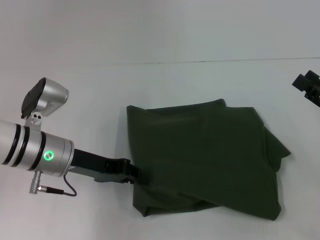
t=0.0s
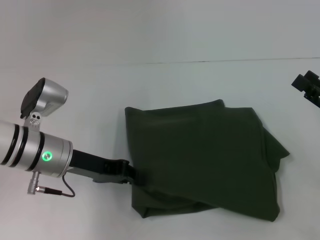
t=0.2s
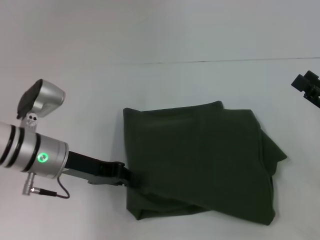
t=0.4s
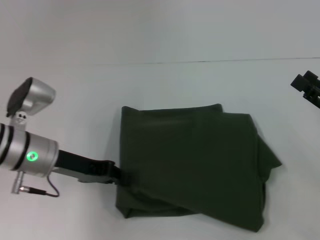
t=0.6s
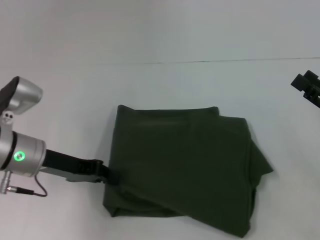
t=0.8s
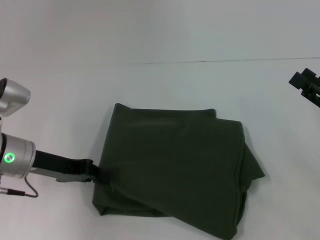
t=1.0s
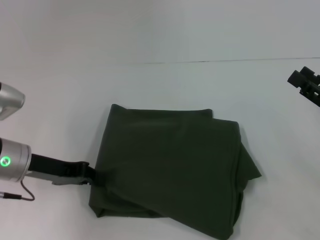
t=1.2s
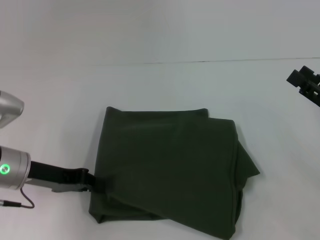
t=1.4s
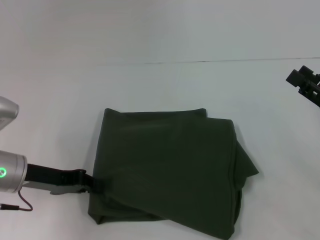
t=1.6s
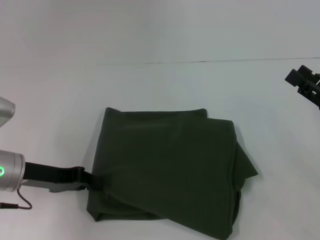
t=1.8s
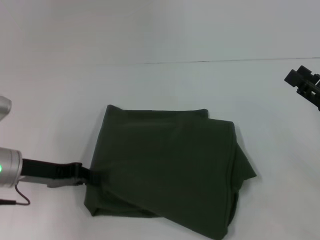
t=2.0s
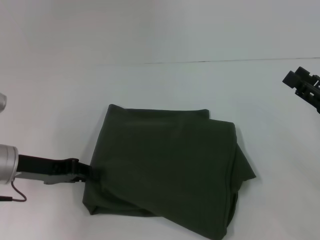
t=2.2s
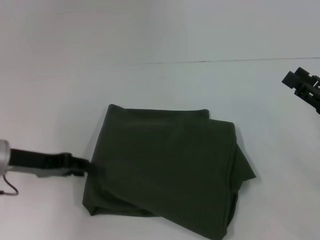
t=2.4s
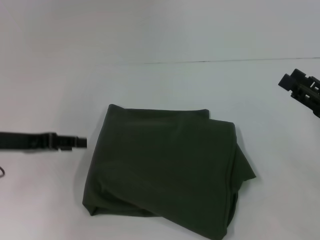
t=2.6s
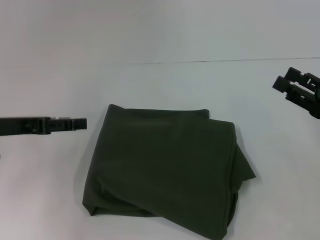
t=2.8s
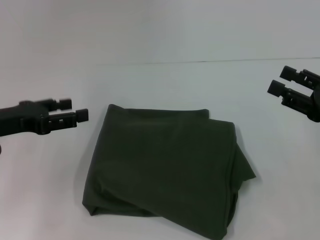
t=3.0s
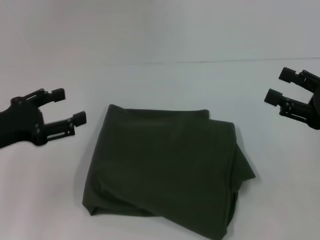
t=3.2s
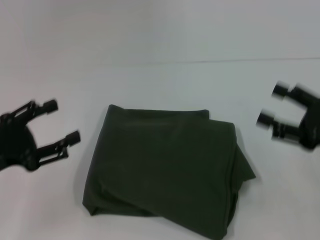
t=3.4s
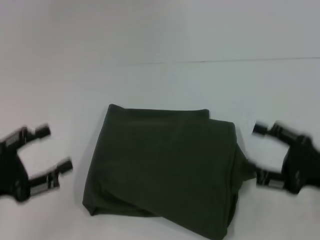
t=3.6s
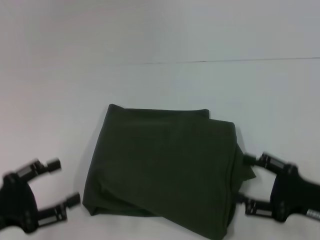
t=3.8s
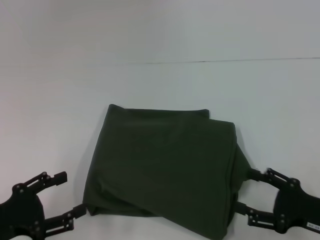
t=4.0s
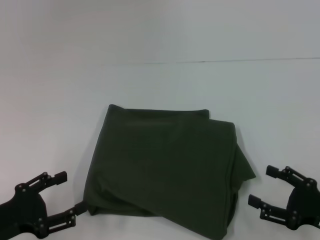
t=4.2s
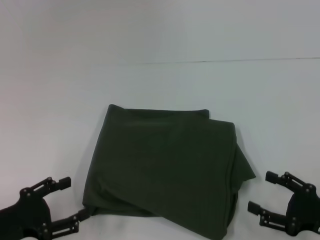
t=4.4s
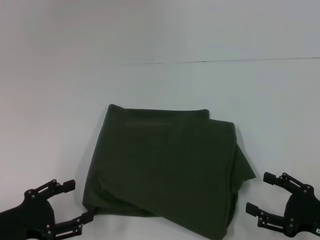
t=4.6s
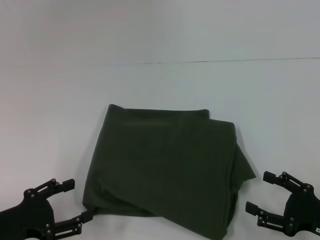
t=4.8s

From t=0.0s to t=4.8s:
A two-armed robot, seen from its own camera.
From t=0.0s to t=1.6s: The left gripper travels to the left by about 5 cm, and closes up.
From t=1.6s to t=3.2s: The left gripper shifts about 5 cm upward, and opens its fingers.
From t=3.2s to t=4.8s: The grippers both shift downward and backward by approximately 15 cm.

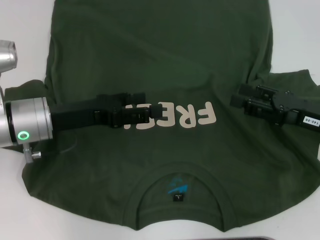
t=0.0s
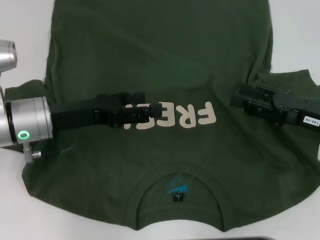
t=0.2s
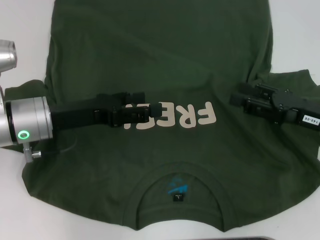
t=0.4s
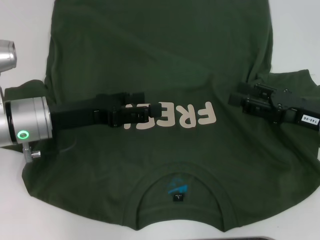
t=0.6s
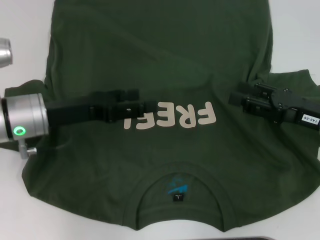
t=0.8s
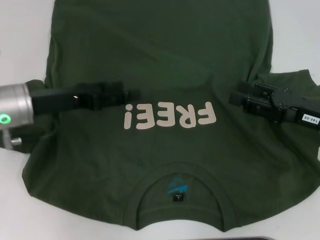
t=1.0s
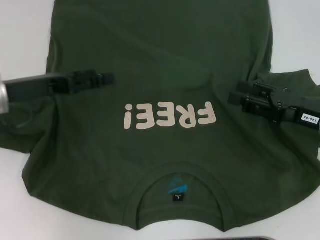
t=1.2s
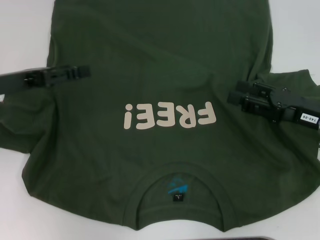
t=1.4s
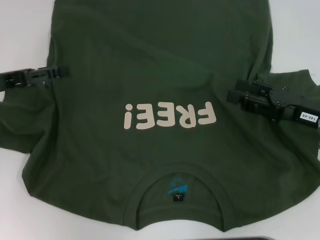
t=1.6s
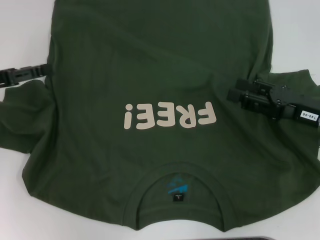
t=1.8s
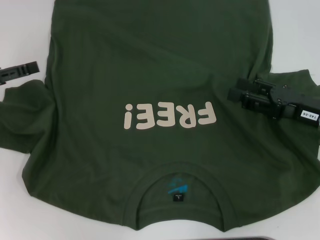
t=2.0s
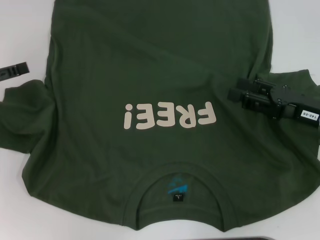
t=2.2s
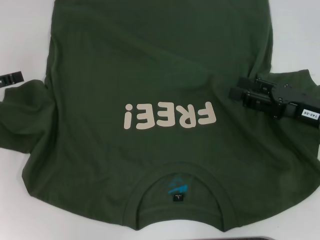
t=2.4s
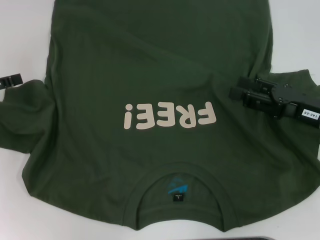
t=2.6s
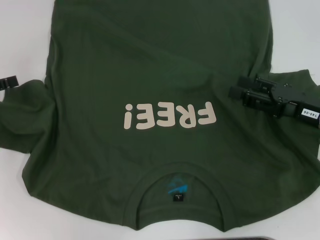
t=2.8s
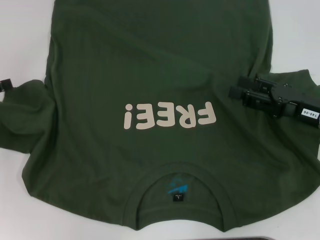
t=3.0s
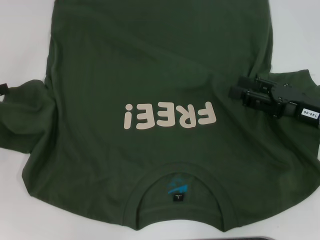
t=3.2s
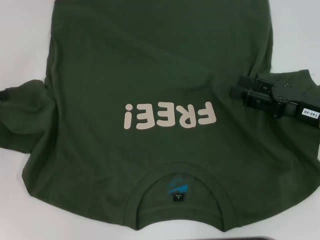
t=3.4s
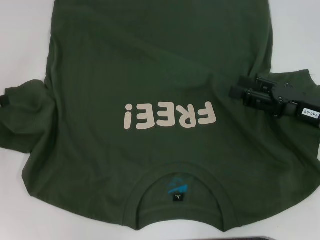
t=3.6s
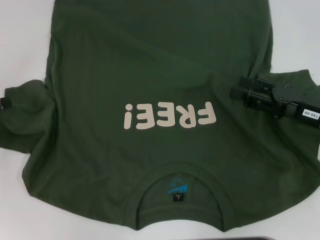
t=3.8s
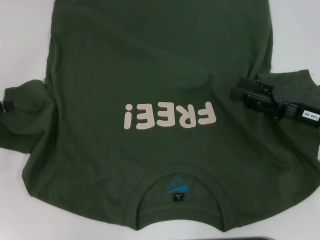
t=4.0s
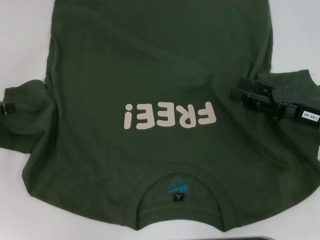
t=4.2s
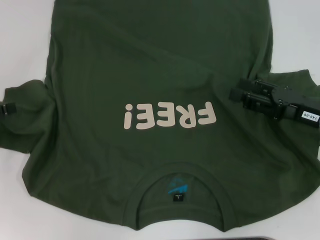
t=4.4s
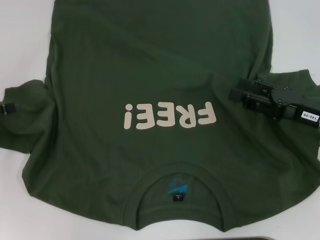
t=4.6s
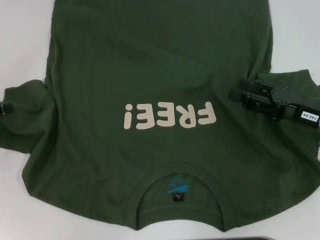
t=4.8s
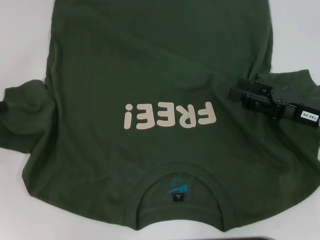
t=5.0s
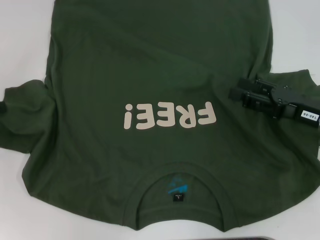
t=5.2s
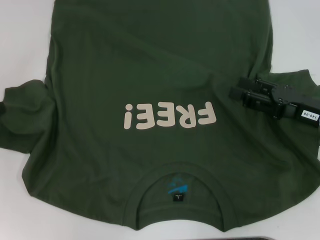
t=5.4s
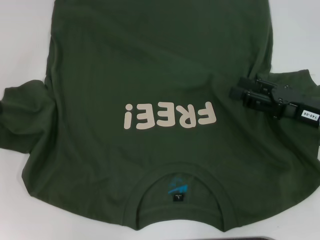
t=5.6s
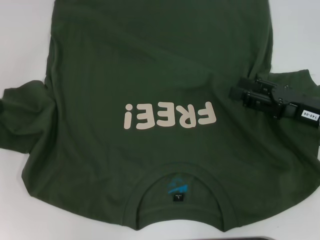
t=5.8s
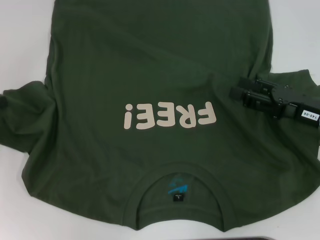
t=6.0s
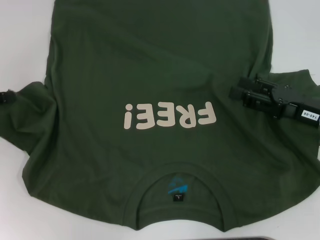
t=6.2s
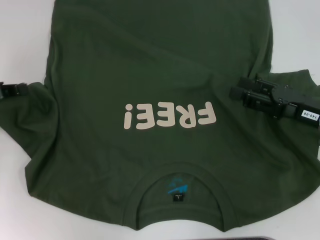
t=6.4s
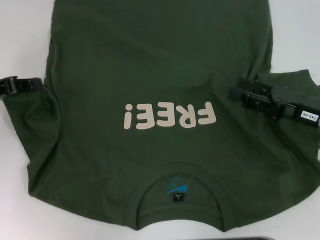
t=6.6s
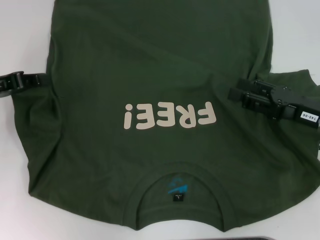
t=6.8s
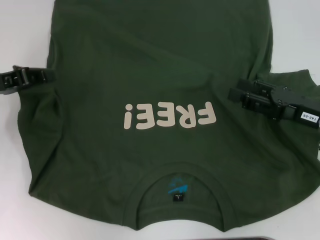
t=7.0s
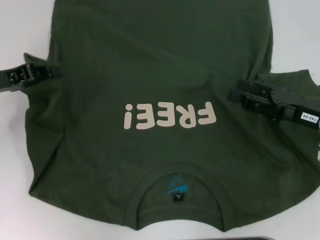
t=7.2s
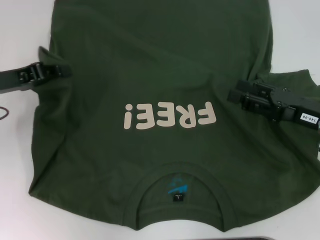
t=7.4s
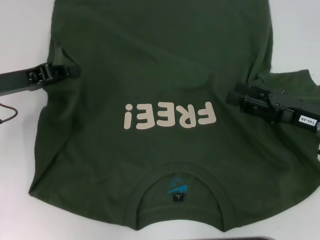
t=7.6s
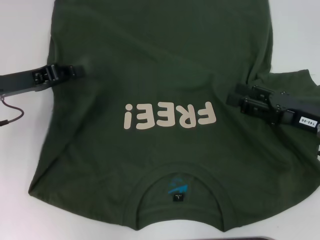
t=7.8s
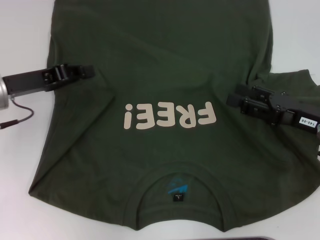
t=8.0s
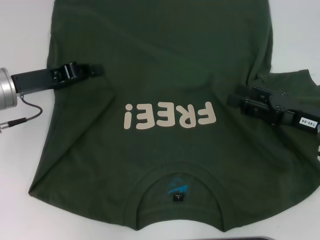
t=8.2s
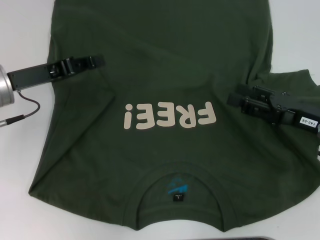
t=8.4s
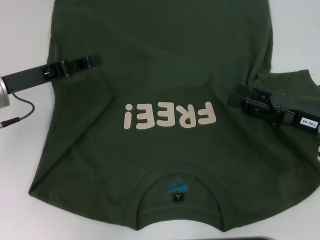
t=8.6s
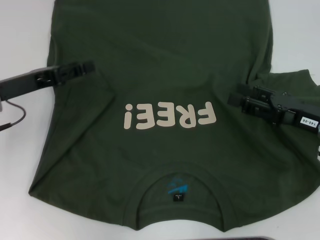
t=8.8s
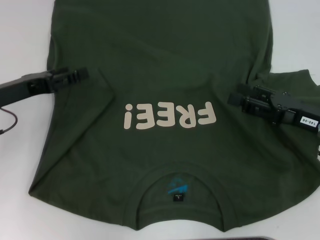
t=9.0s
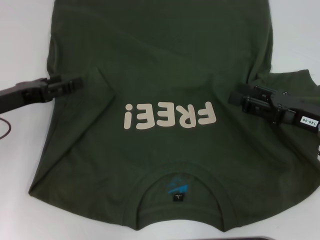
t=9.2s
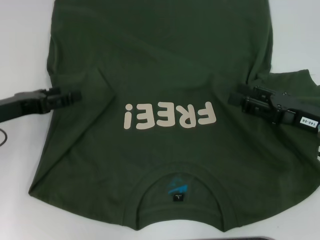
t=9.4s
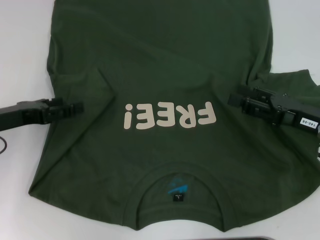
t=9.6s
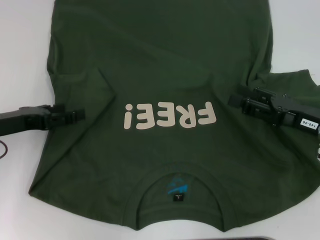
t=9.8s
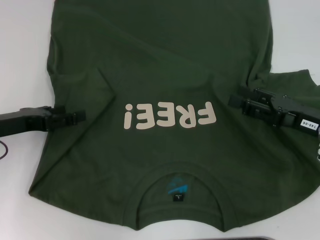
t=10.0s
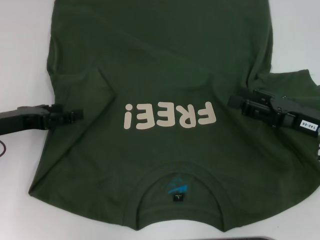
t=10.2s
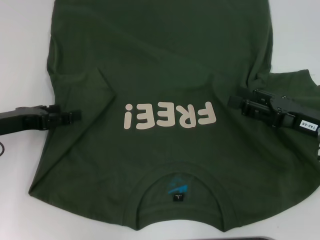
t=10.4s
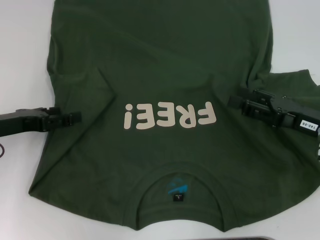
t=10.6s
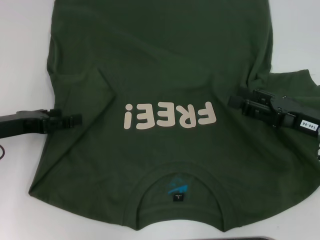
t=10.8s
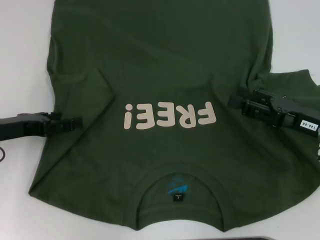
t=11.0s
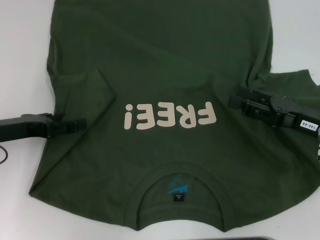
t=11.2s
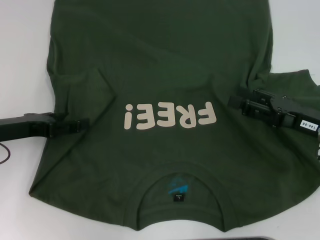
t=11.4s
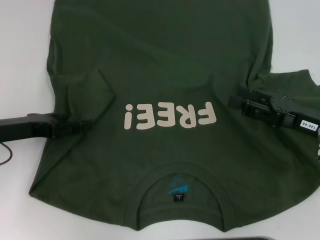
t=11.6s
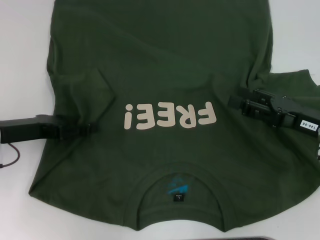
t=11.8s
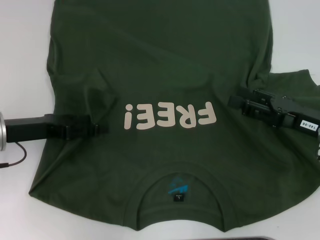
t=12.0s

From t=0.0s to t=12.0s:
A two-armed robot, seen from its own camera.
From t=0.0s to t=1.6s: The left gripper goes roughly 10 cm to the left.
From t=1.6s to t=3.0s: The left gripper is displaced to the left by roughly 5 cm.
From t=6.0s to t=7.6s: The left gripper shifts about 10 cm to the right.
From t=7.6s to t=9.0s: The left gripper opens its fingers.
From t=9.0s to t=12.0s: The grippers stay close to where they were, moving slightly.

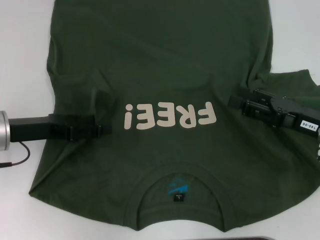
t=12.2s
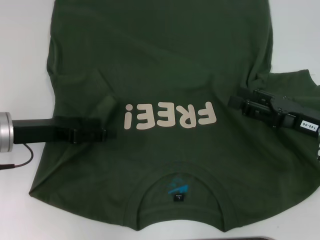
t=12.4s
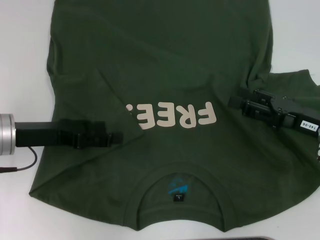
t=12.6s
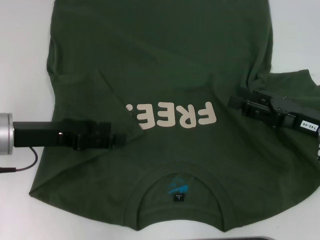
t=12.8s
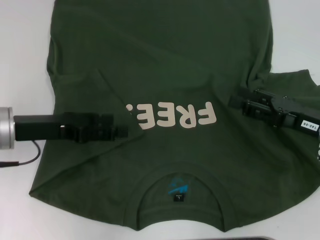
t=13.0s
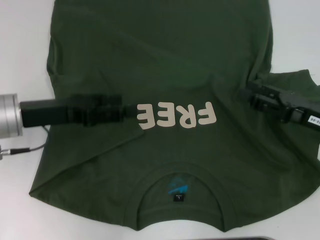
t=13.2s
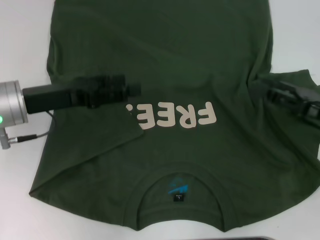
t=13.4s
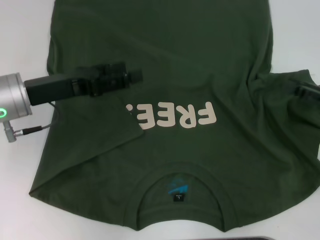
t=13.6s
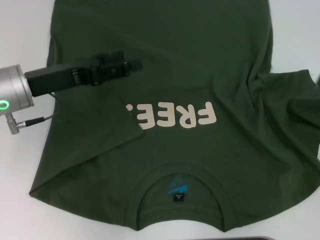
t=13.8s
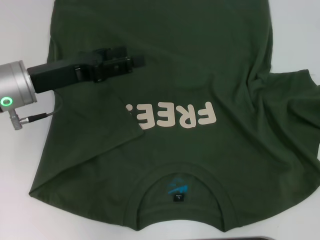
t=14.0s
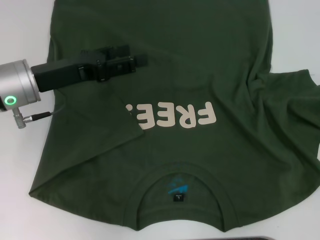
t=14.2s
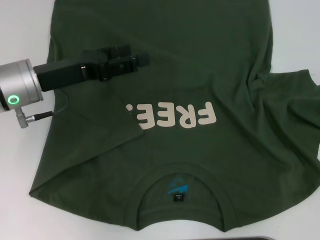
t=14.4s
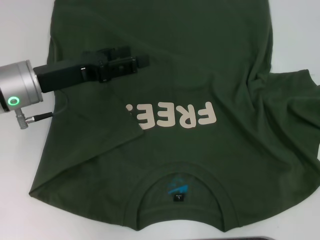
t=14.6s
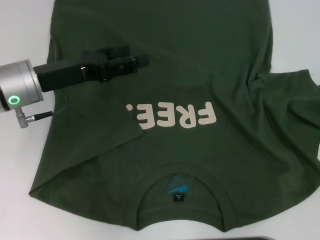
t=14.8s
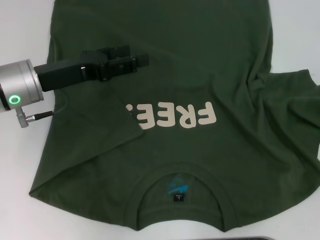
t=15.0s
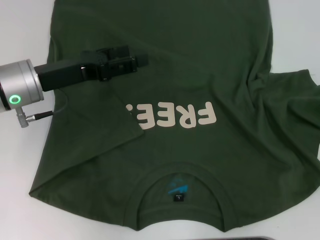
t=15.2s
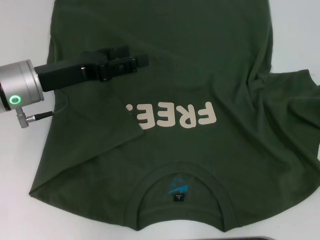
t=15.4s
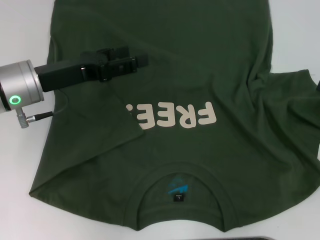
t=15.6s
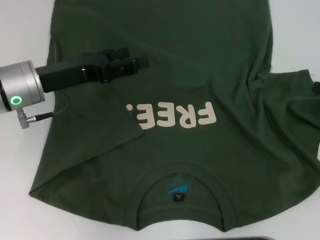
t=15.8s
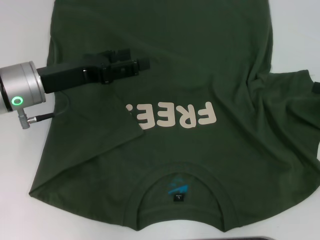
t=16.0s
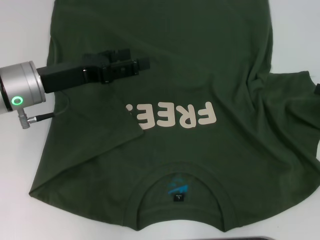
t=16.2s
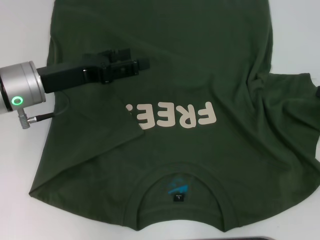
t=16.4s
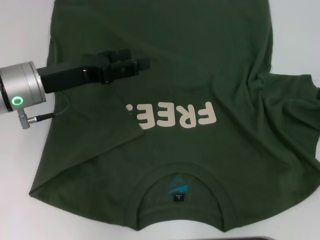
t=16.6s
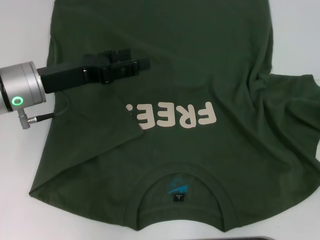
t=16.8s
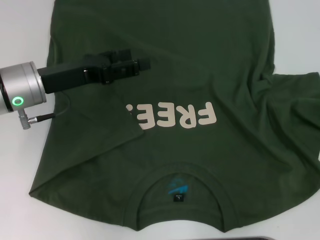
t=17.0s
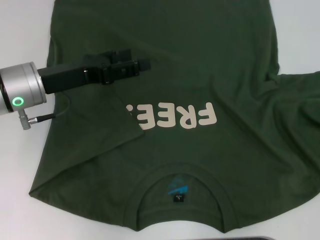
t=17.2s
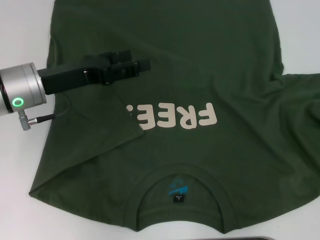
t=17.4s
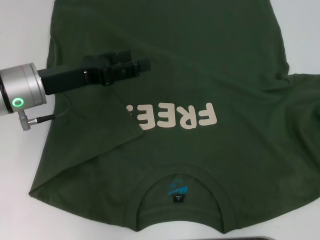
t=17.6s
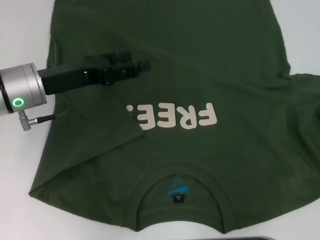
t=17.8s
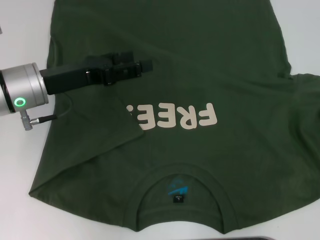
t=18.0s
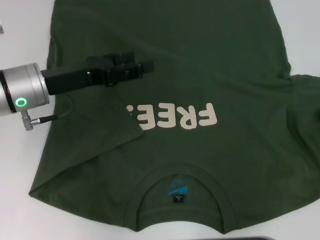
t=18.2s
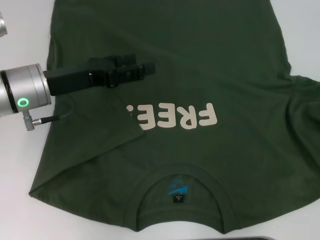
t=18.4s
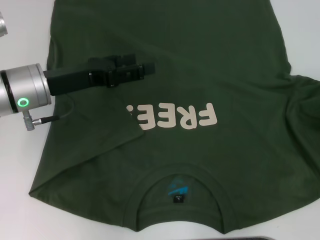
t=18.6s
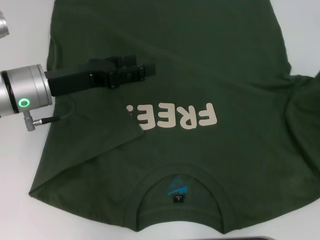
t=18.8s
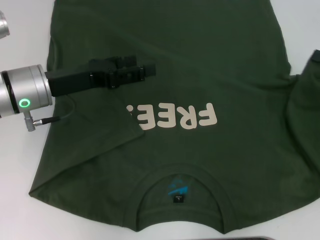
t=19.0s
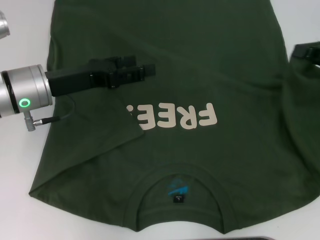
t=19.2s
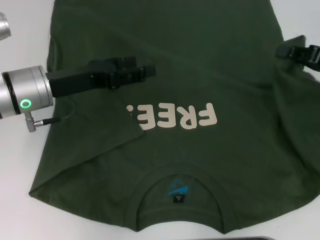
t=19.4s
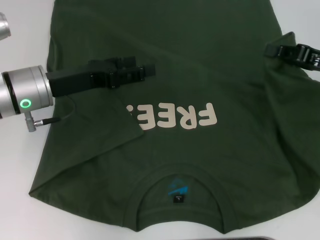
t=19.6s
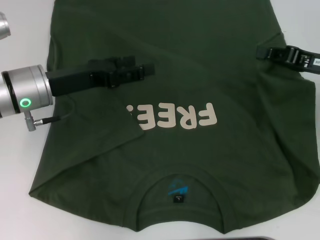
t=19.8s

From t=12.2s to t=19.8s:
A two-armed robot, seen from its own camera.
From t=12.2s to t=13.8s: The right gripper moves to the right, some 10 cm. Meanwhile the left gripper ends up some 5 cm from where it was.
From t=16.8s to t=18.2s: The right gripper moves roughly 5 cm.
From t=18.2s to t=19.8s: The right gripper moves to the left and forward, about 15 cm.
